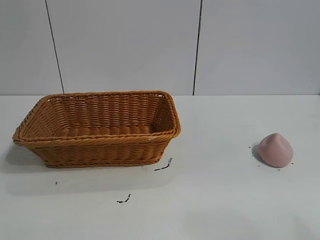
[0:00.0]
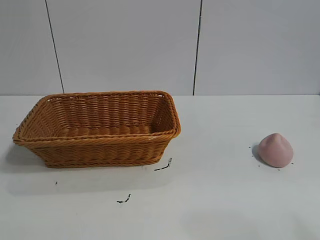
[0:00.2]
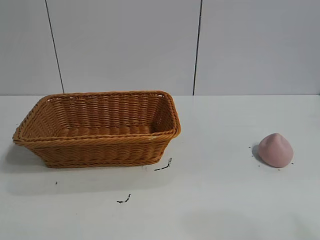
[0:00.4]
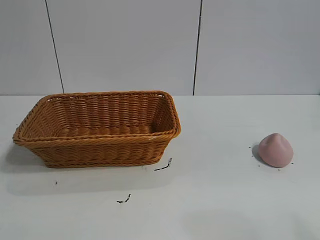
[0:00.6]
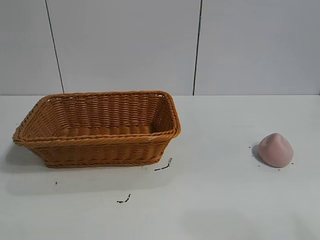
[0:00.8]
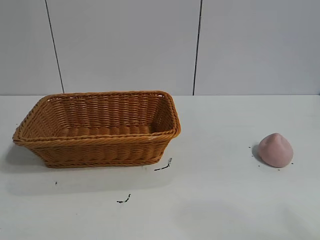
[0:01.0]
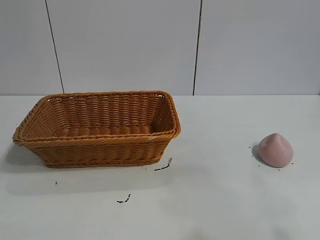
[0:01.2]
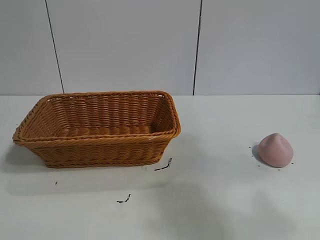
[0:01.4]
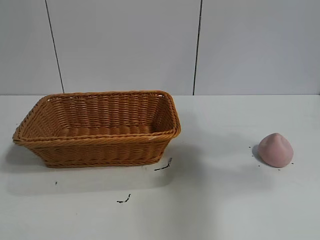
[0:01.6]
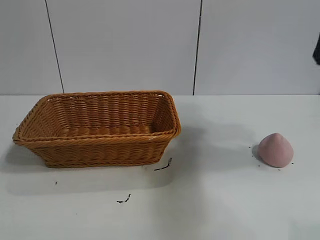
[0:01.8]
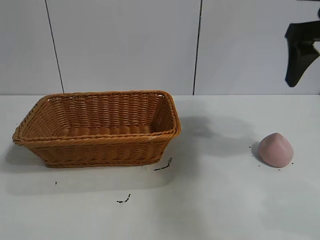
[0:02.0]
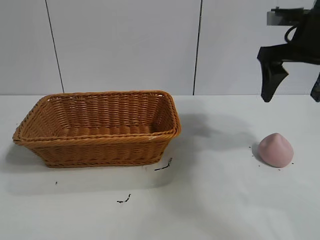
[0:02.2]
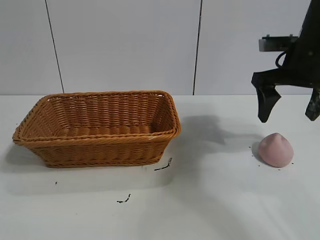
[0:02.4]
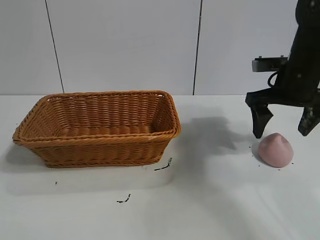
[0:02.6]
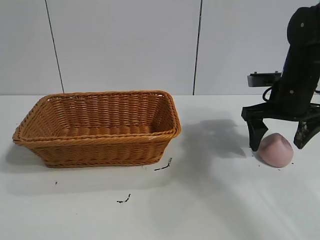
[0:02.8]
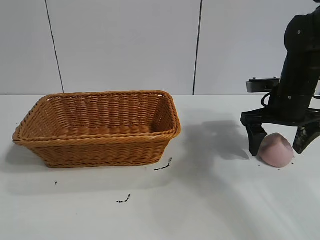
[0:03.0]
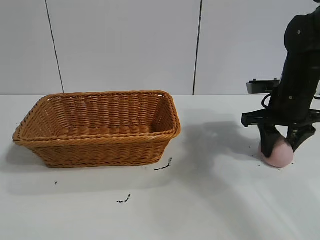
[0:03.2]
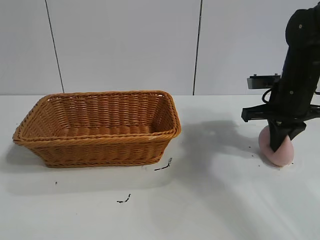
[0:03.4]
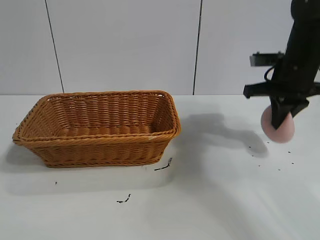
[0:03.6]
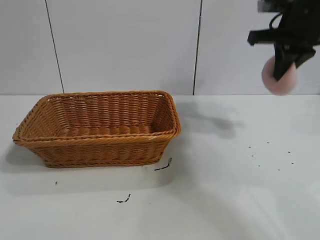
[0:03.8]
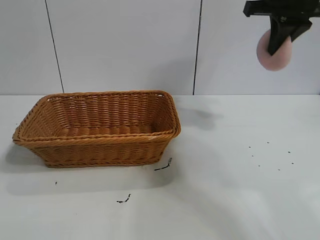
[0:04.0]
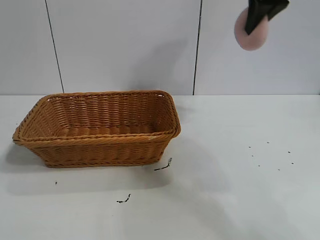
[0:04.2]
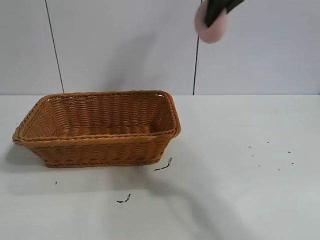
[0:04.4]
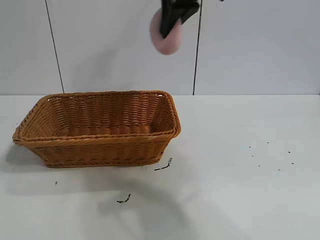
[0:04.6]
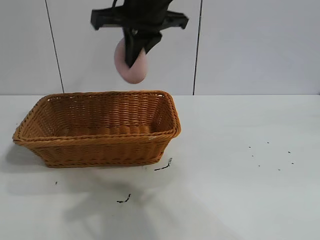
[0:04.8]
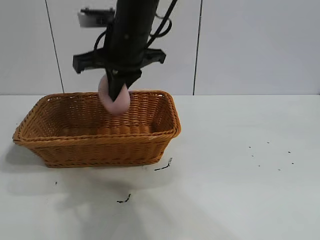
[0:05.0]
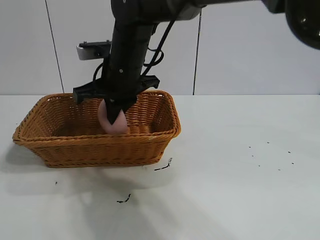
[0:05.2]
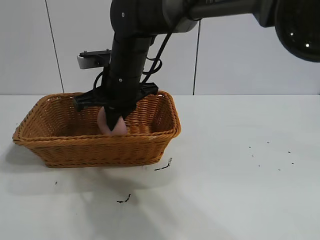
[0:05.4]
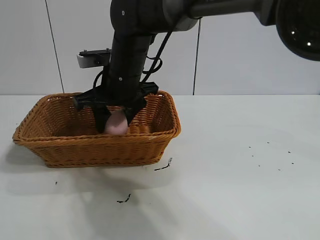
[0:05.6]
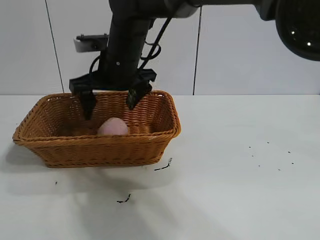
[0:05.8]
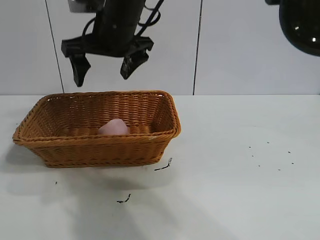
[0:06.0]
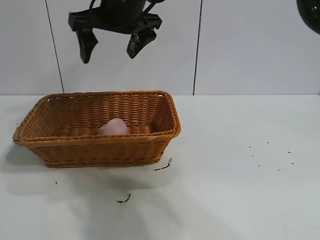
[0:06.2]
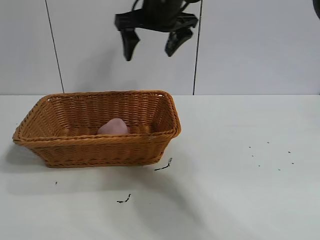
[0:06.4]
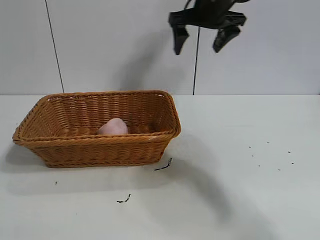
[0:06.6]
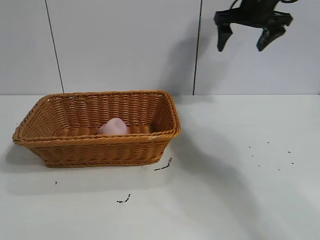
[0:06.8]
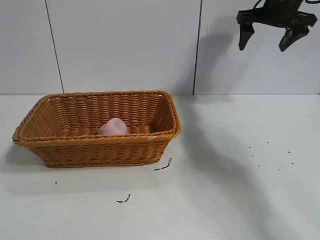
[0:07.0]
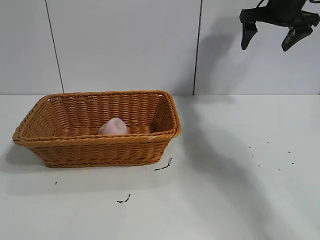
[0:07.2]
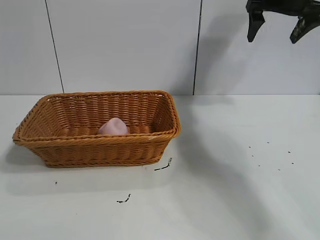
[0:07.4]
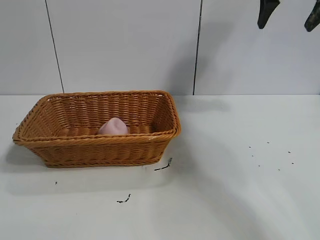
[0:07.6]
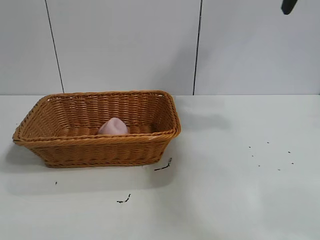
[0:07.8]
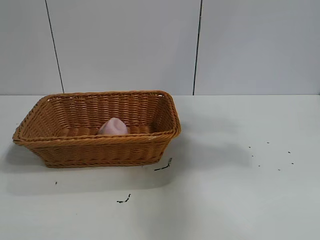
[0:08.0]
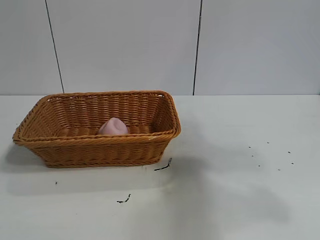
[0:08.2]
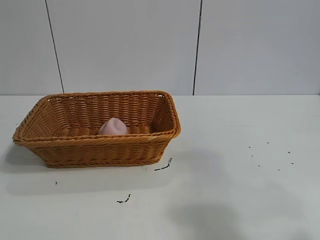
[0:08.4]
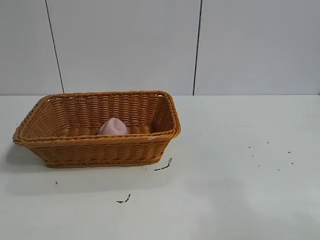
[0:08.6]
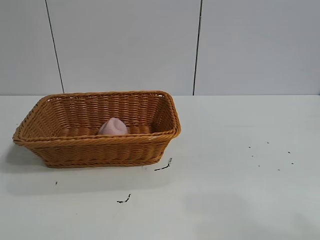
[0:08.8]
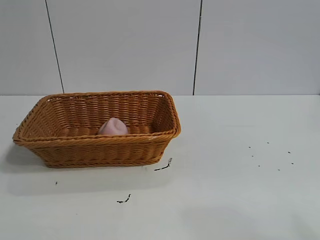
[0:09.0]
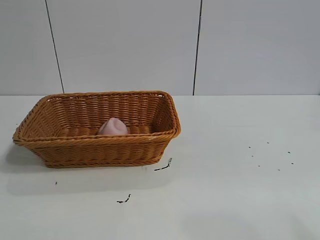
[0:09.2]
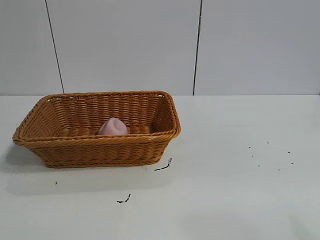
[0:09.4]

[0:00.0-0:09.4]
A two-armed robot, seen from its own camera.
Task of the whole recording: pick up the peach and put it into the basket.
Step, 0:01.0 to 0:03.4: Grasp the peach with right gripper.
Step, 0:03.6 to 0:05.8: Place the peach in the basket with right gripper.
